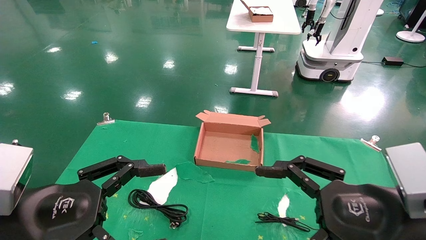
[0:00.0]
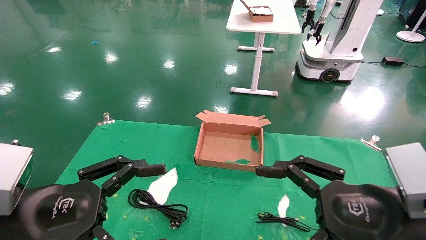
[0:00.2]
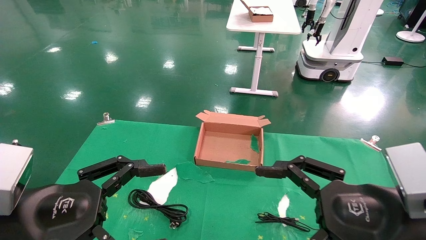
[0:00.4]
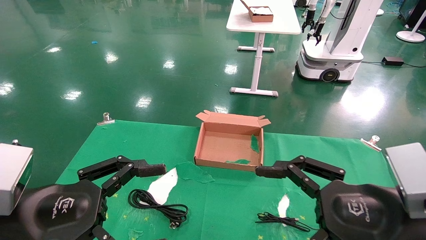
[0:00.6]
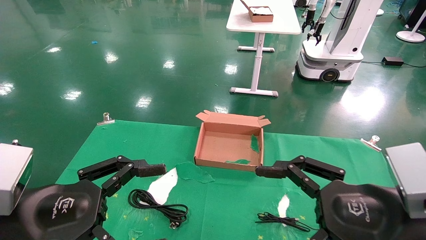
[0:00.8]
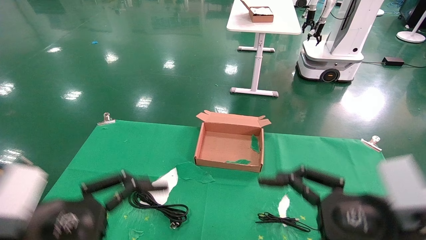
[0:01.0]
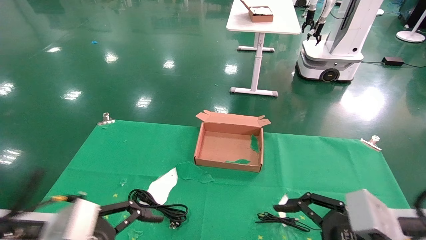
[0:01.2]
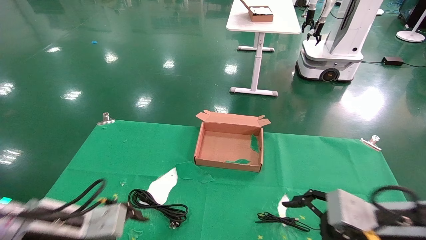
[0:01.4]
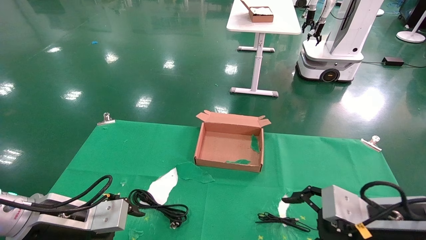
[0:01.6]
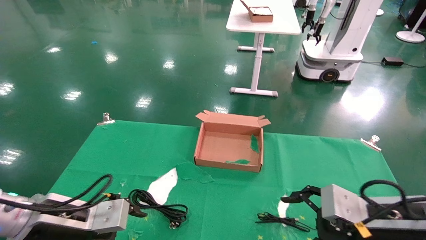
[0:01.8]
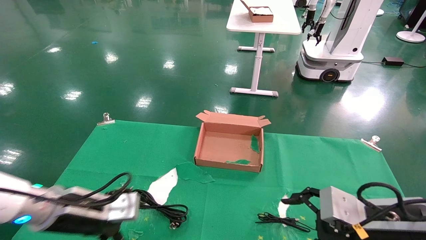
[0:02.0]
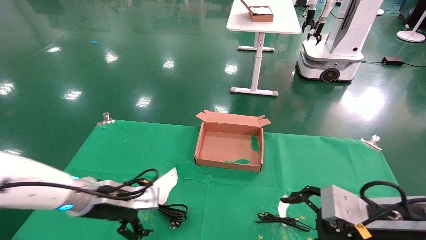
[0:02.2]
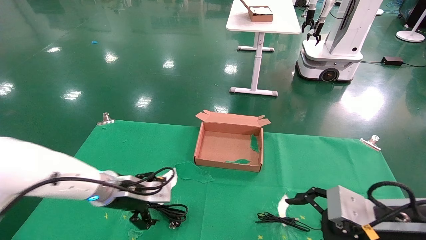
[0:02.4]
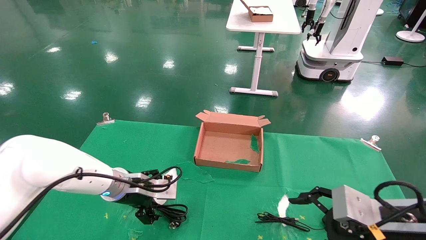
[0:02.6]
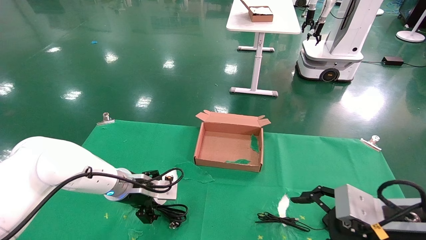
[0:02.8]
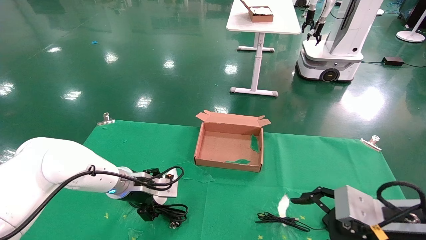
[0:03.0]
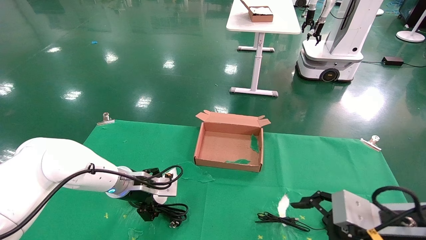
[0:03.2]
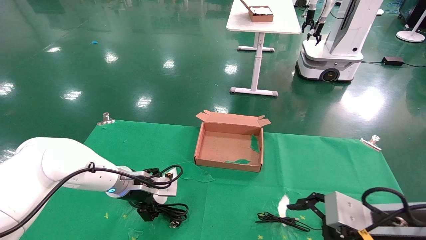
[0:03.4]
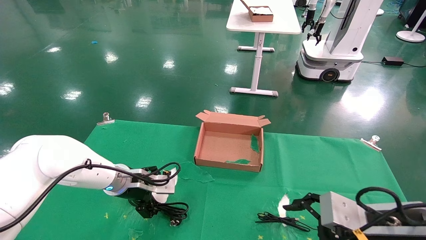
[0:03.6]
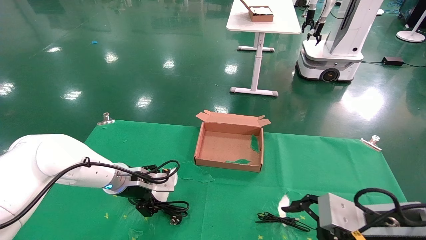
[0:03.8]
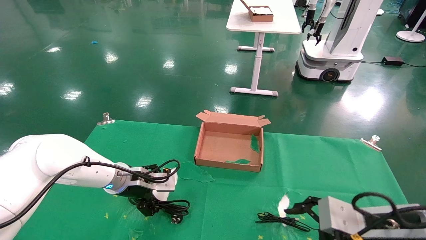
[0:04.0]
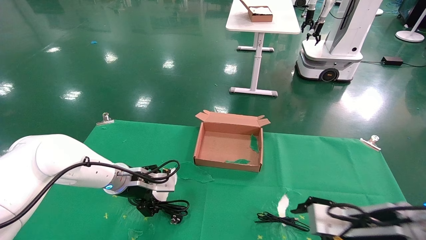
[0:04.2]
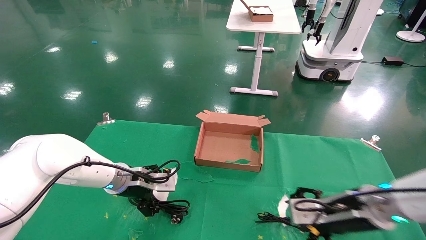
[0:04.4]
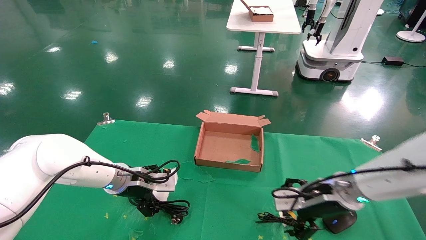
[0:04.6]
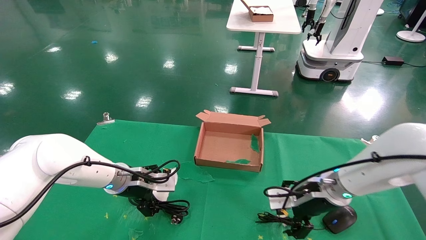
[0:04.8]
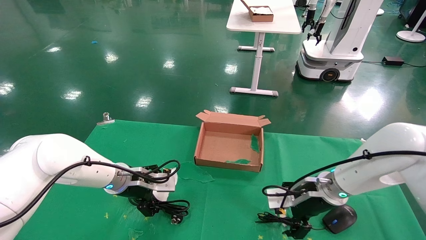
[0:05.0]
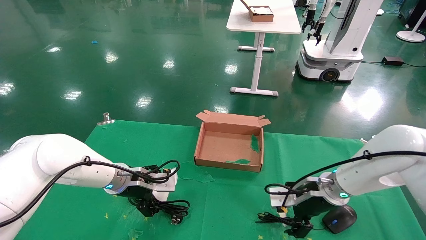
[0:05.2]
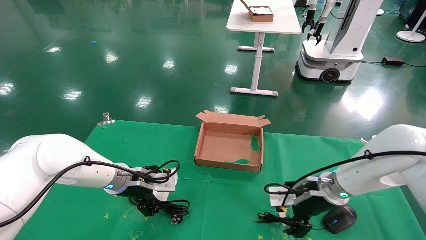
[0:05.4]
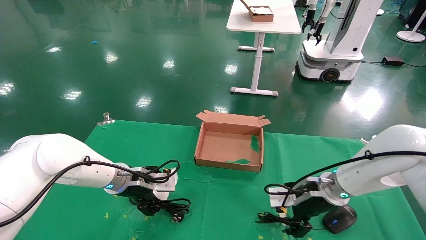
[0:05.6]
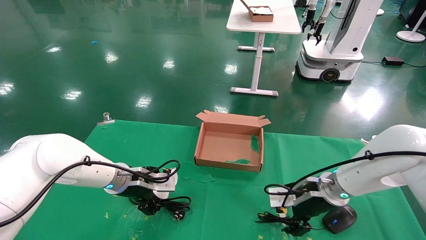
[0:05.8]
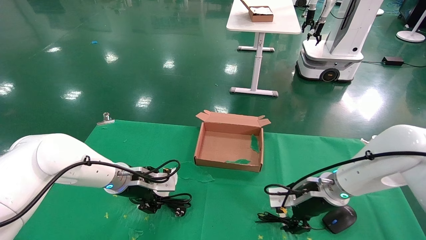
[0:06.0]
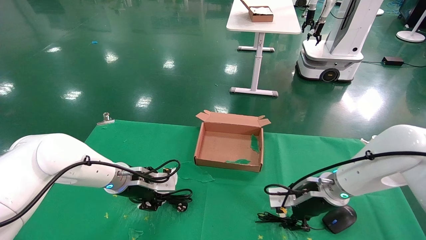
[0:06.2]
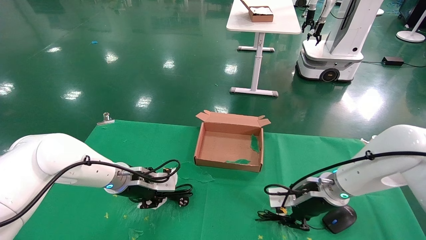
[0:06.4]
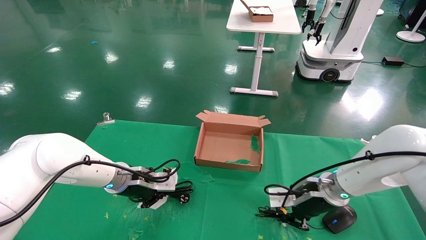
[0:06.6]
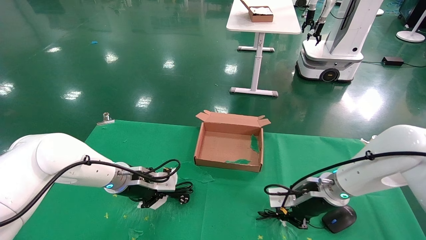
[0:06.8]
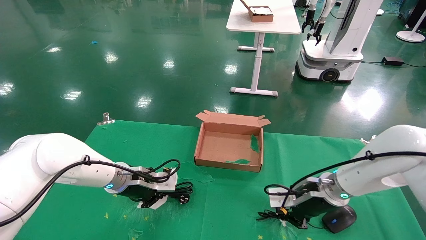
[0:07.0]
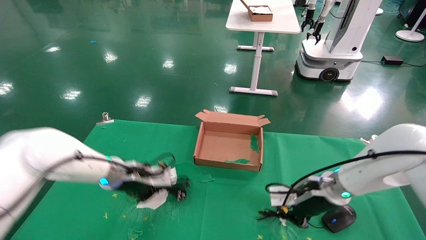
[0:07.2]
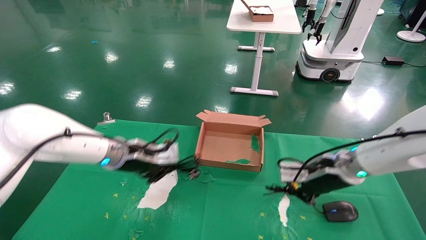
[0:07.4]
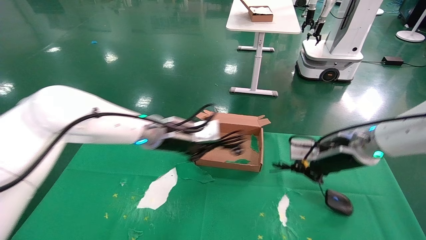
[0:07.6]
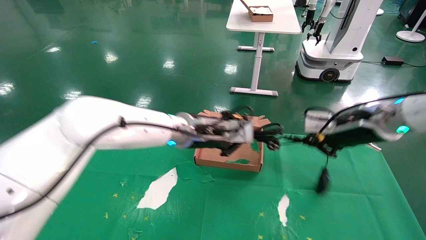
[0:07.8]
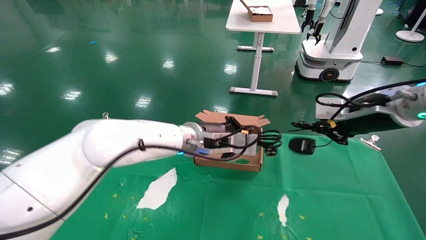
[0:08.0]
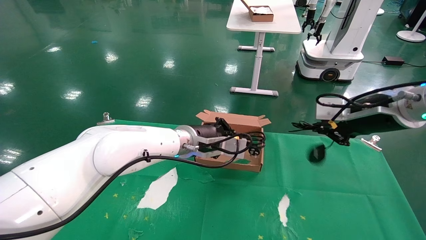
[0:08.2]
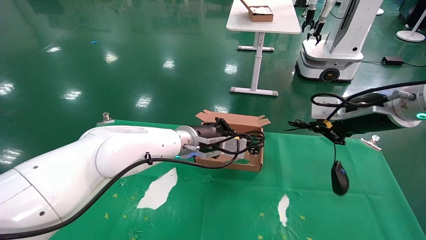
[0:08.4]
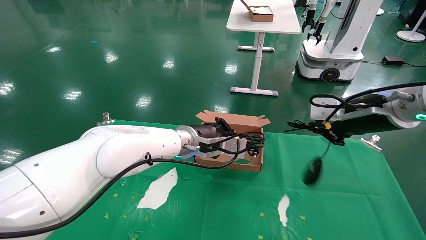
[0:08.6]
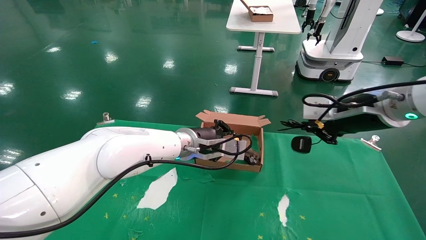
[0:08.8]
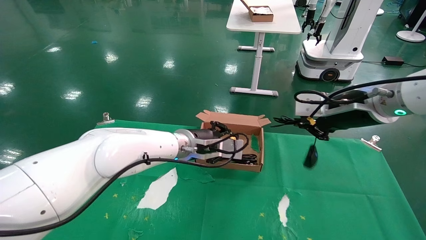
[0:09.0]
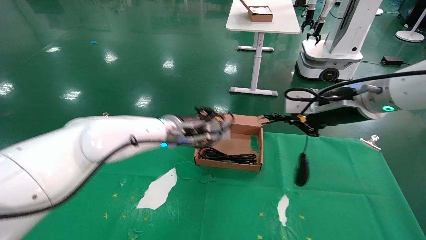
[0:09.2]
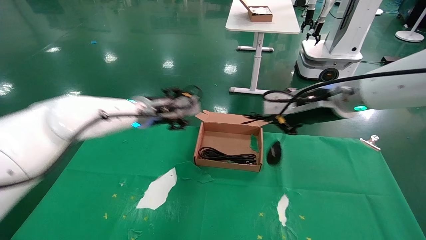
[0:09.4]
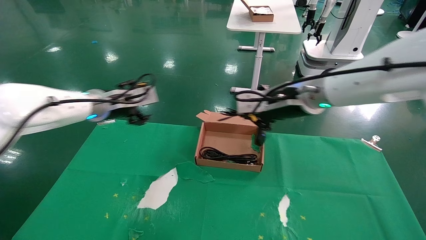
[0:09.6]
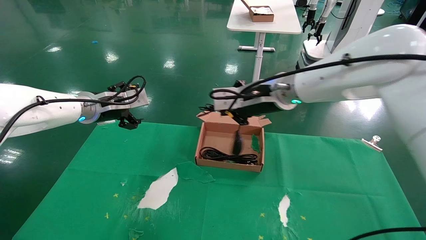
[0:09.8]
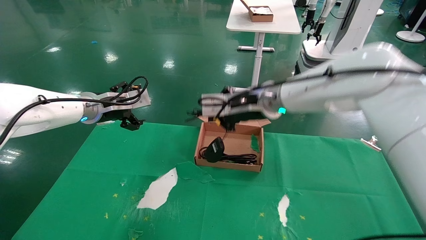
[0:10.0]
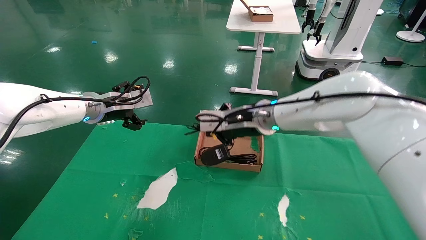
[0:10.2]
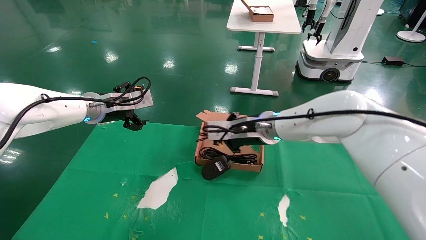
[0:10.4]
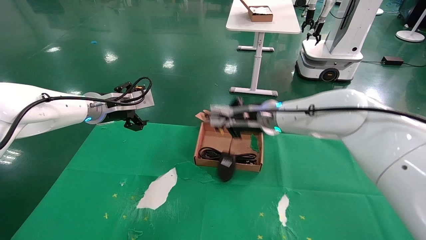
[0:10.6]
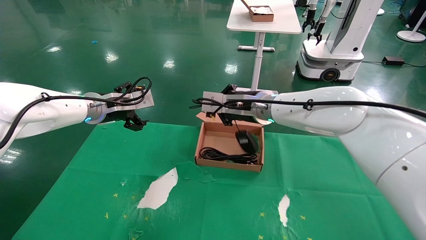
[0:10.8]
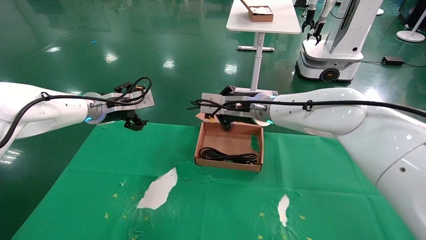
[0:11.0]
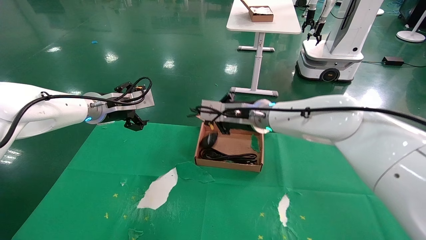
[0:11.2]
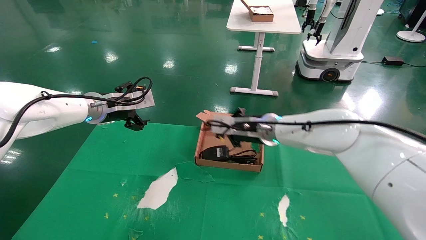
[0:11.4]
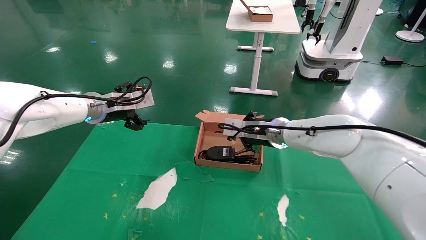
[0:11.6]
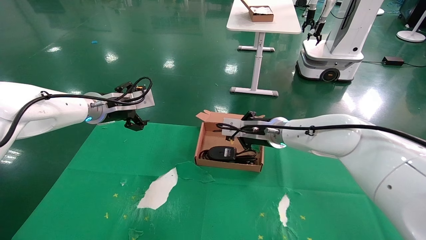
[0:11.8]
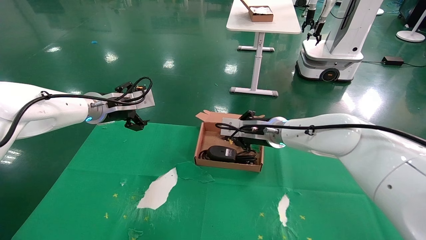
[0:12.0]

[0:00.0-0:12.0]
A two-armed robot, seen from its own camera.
Step, 0:01.2 to 0:07.4: Grab and lift both the mouse and power cord from the accessory packaging area at the same time.
Step, 0:07.6 to 0:12.0: Place the mouse and power cord into the box.
0:00.0 to 0:01.6: The two grippers go approximately 10 cm forward and downward.
0:01.6 to 0:03.0: The left gripper travels forward and to the right by some 20 cm.
0:03.0 to 0:04.4: The right gripper moves forward, about 10 cm.
0:04.4 to 0:06.0: The right gripper goes some 10 cm forward.
0:06.0 to 0:07.6: The left gripper travels upward and to the right by some 15 cm, and closes. Meanwhile the right gripper shifts some 10 cm upward, and closes its fingers.
0:07.6 to 0:09.0: The right gripper travels upward by roughly 10 cm. The left gripper ends up roughly 5 cm from where it was.
0:09.0 to 0:10.4: The right gripper moves to the left and forward, approximately 20 cm. Meanwhile the left gripper moves to the left, approximately 20 cm, and opens.
0:10.4 to 0:12.0: The right gripper ends up some 5 cm from where it was.

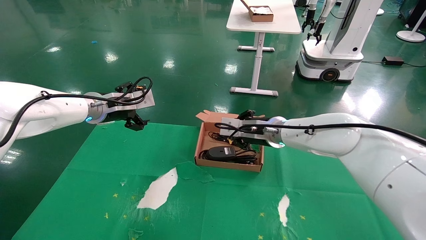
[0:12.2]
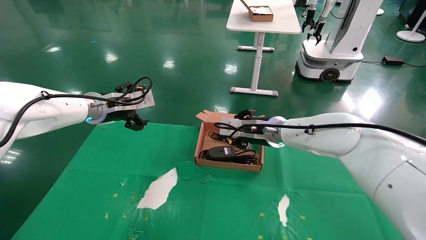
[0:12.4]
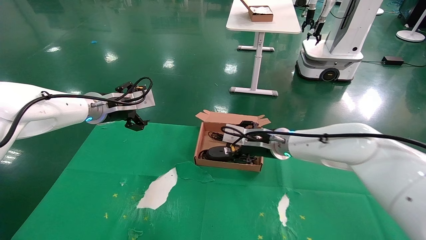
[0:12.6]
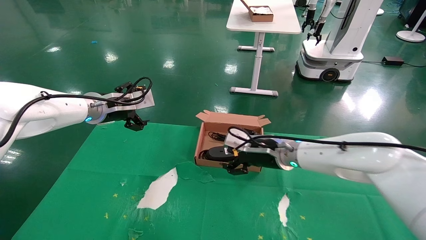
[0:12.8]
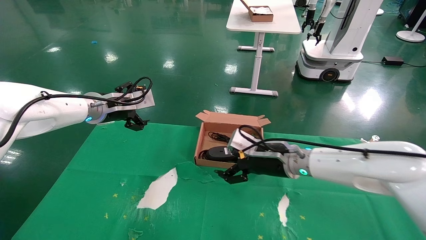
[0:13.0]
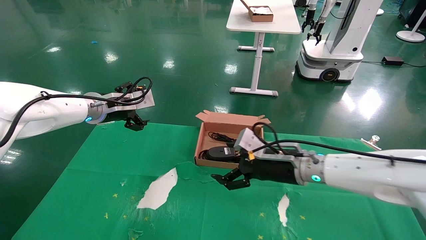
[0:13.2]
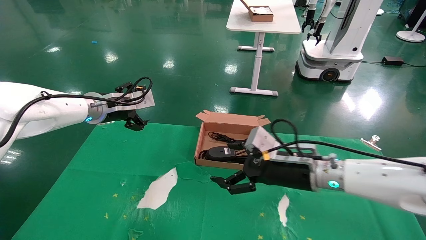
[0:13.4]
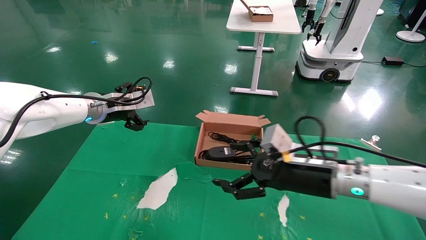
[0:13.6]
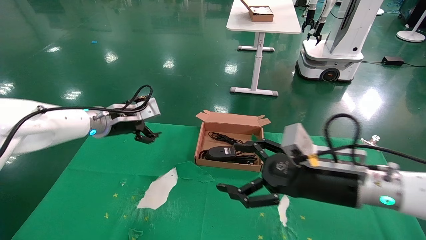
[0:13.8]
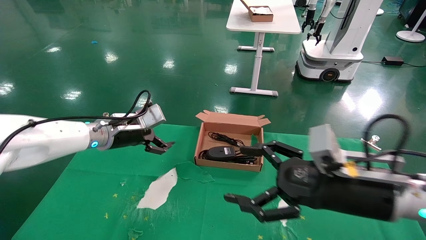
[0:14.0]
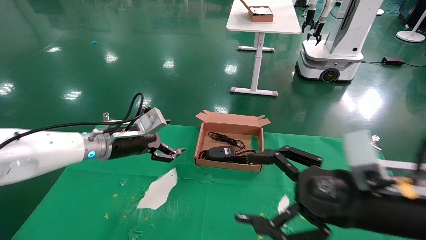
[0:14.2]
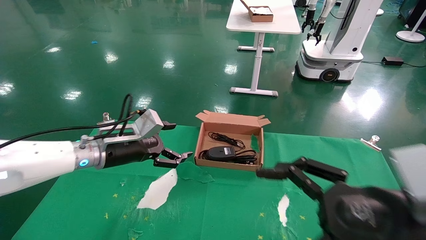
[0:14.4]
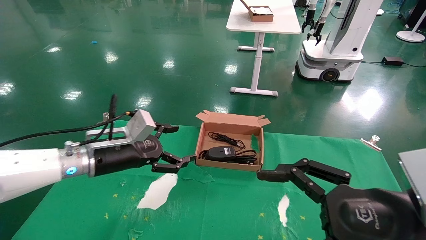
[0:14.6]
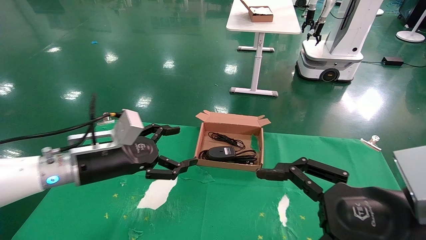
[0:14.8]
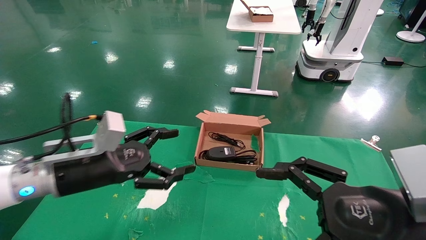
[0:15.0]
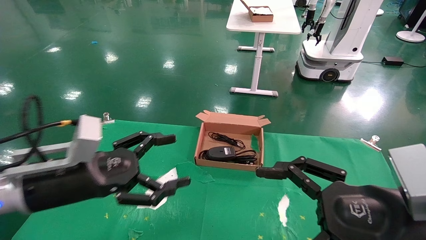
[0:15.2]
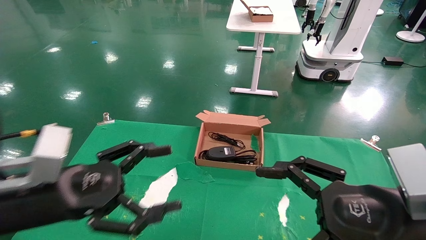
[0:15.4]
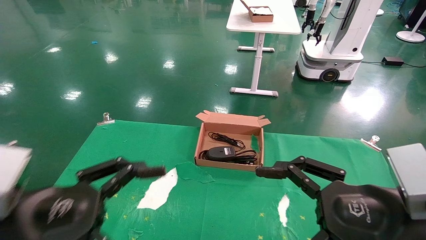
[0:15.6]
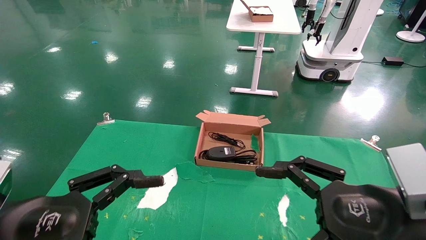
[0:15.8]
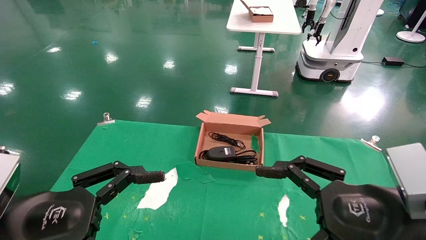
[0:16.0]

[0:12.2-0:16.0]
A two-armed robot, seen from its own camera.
0:12.2 to 0:13.4: The right gripper shifts some 10 cm backward and to the right, and opens.
0:13.4 to 0:14.8: The right gripper goes some 20 cm backward and to the right, while the left gripper travels backward and downward by about 15 cm.
0:14.8 to 0:16.0: The left gripper is displaced backward by roughly 20 cm.
